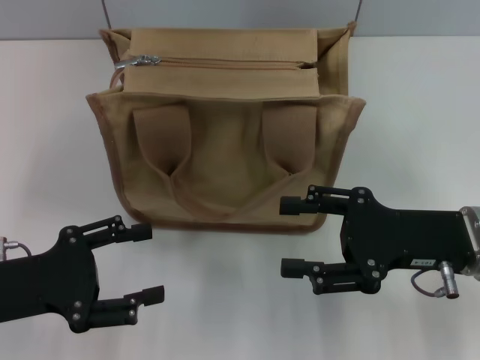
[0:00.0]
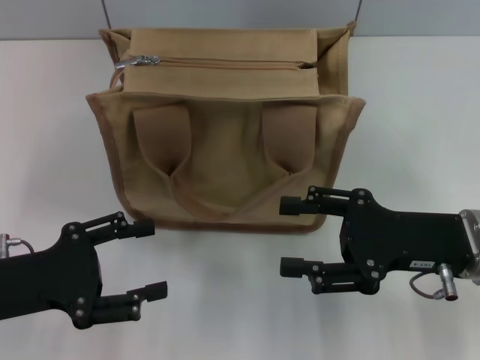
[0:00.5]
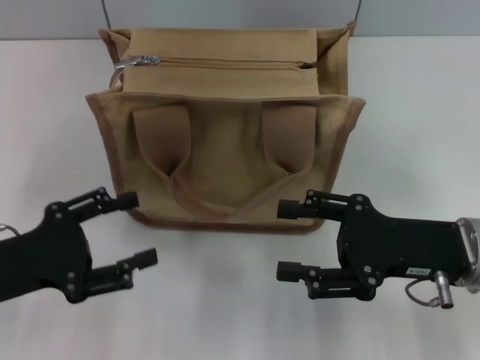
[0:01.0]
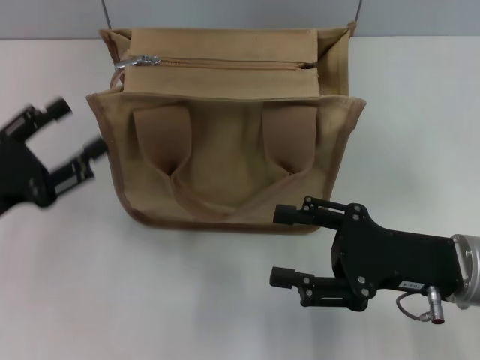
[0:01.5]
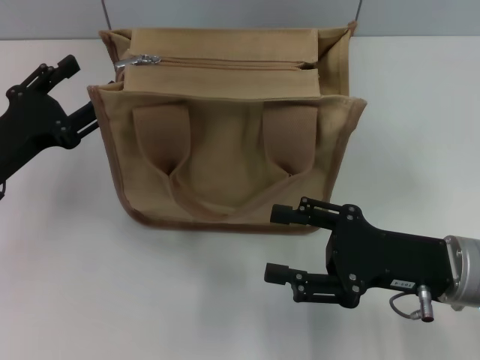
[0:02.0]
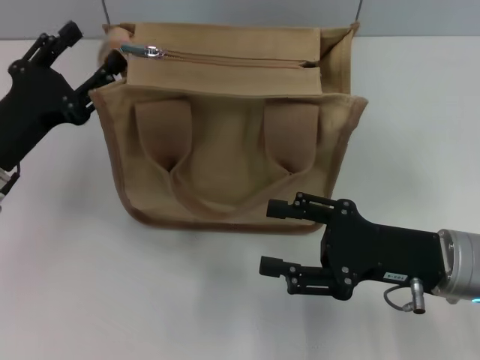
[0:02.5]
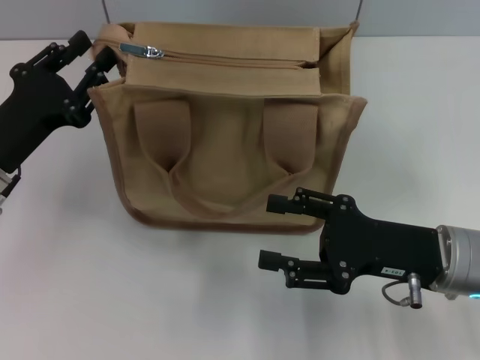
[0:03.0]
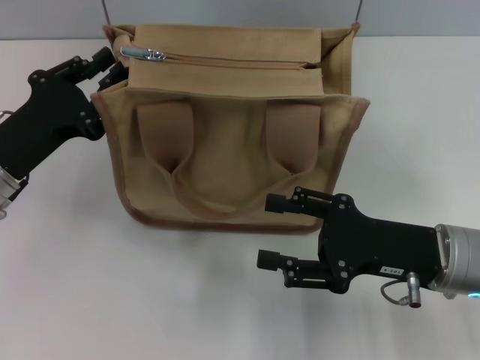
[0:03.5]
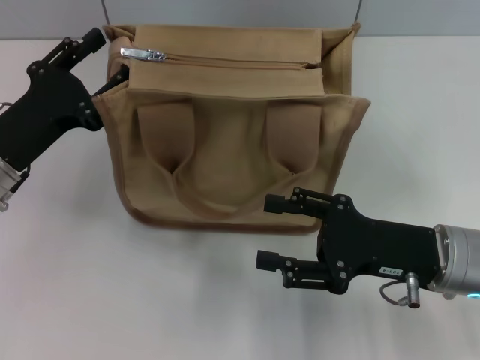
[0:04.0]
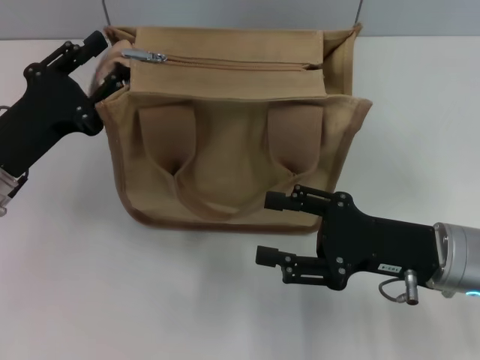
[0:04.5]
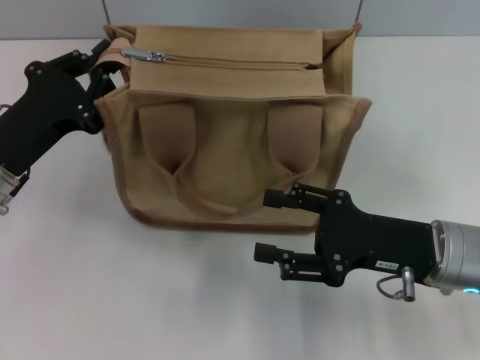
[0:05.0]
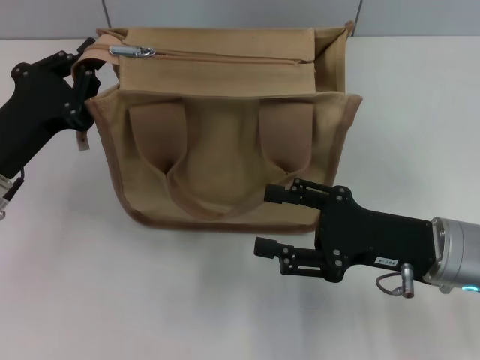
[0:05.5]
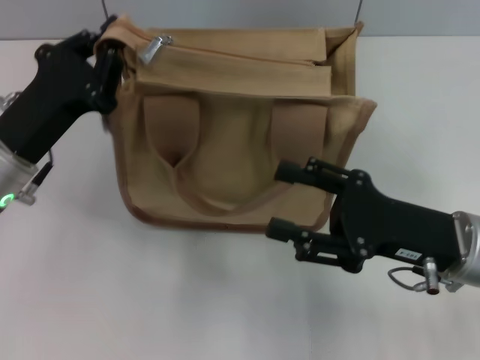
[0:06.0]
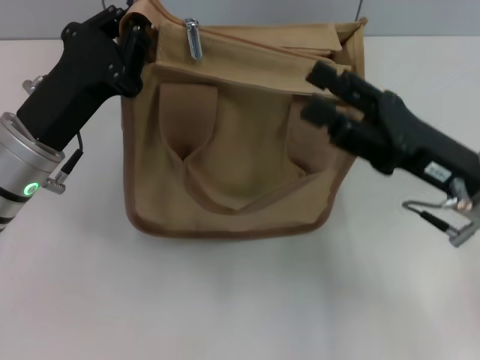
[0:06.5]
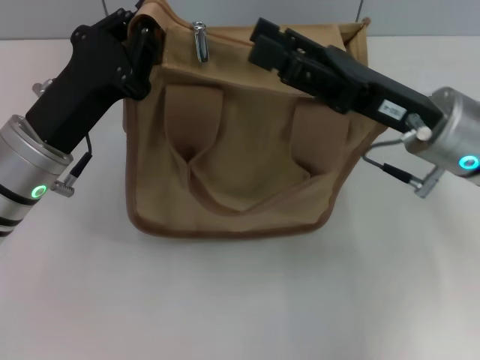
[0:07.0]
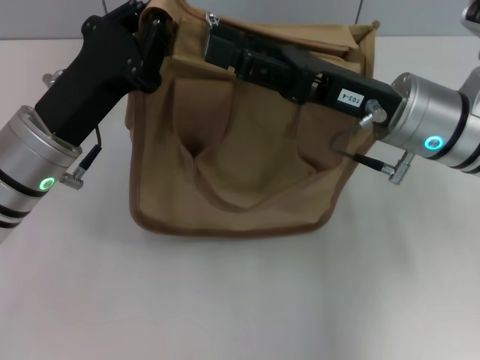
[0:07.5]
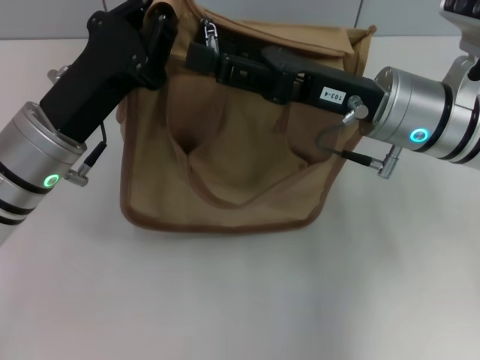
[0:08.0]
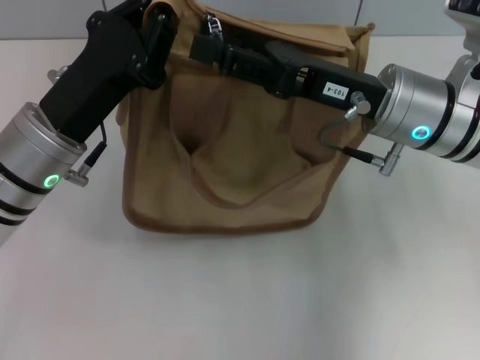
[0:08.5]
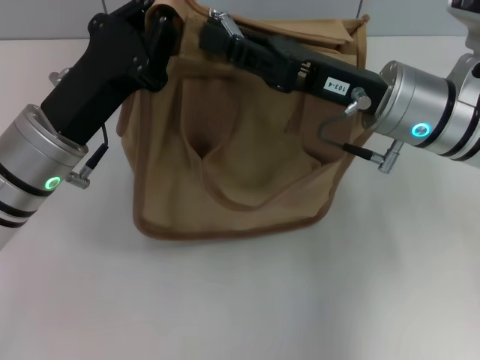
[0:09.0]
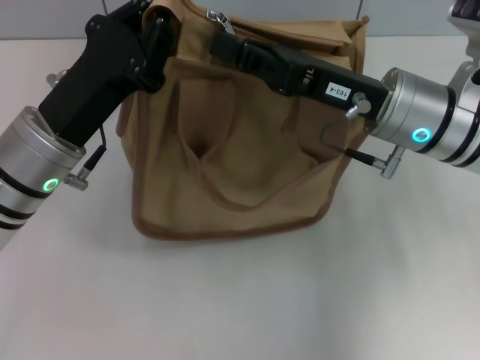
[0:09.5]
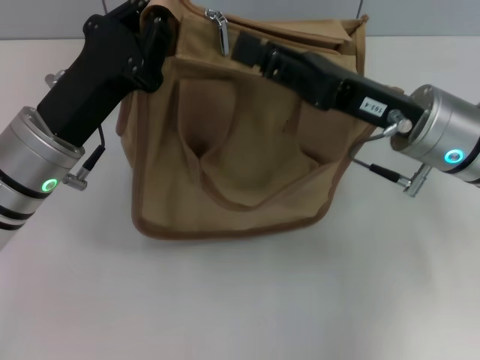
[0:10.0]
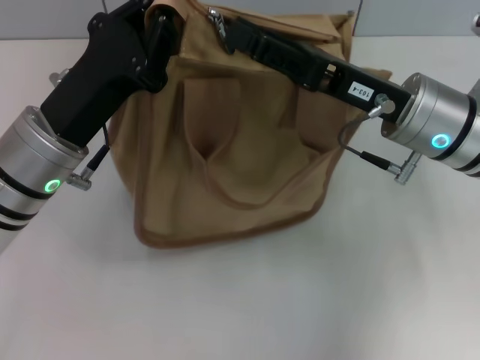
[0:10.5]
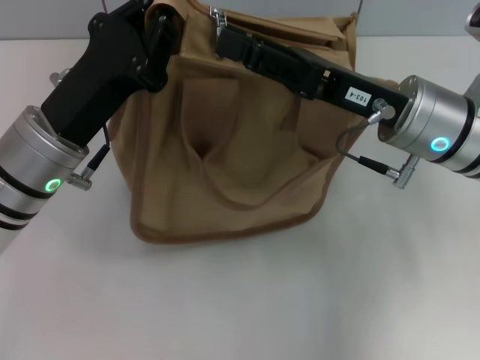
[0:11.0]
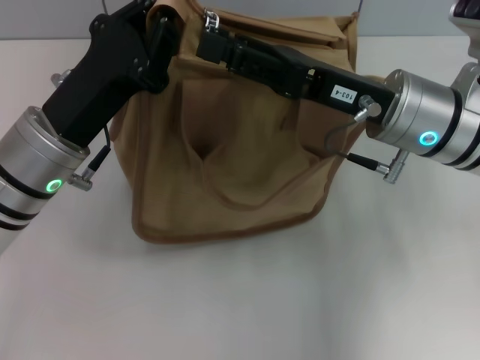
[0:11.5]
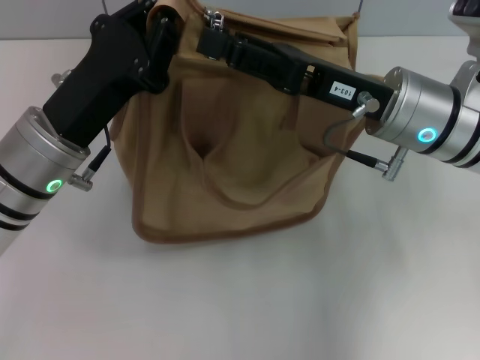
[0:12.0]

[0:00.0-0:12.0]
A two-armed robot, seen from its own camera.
0:00.0 to 0:02.0: The left gripper goes about 10 cm forward.
0:02.0 to 0:04.0: The left gripper closes its fingers.
0:04.0 to 0:06.0: The left gripper closes up.
0:06.0 to 0:08.0: The right gripper shifts about 15 cm forward, upward and to the left.
0:08.0 to 0:10.0: The right gripper closes its fingers.
0:10.0 to 0:12.0: The right gripper opens its fingers.

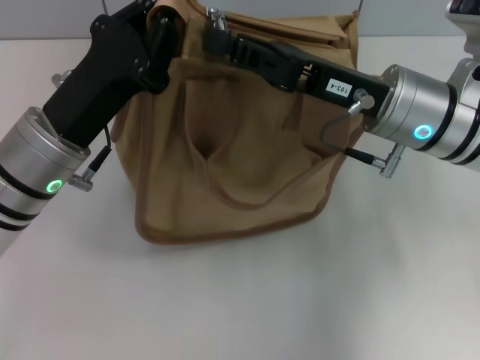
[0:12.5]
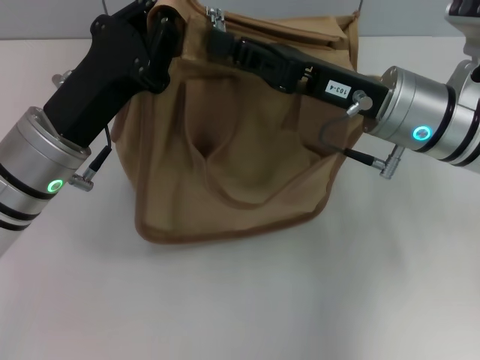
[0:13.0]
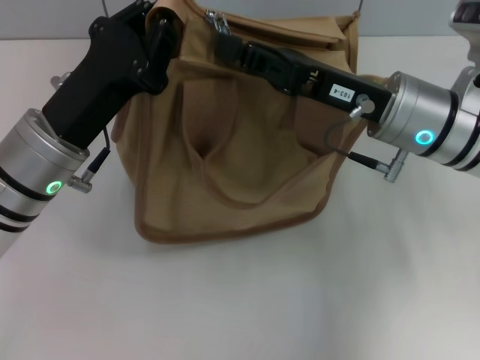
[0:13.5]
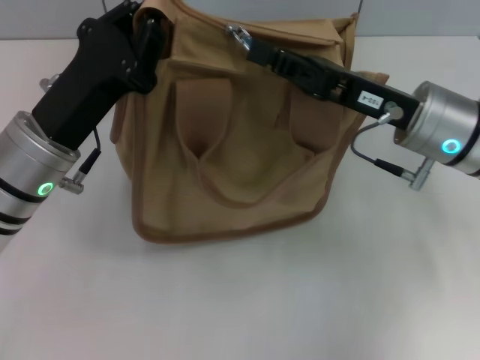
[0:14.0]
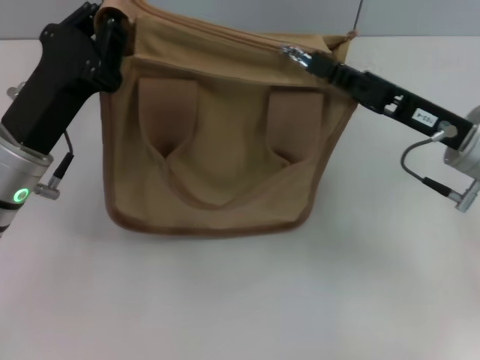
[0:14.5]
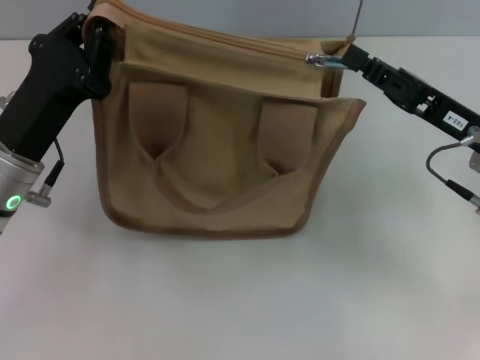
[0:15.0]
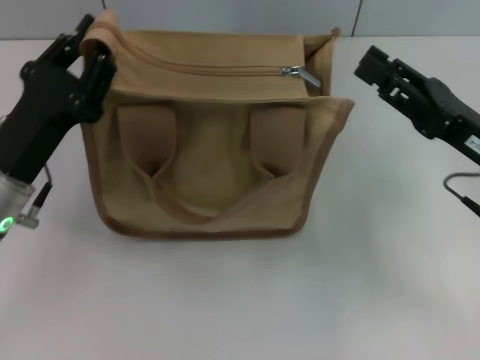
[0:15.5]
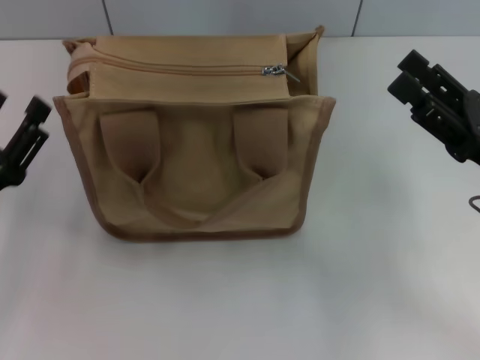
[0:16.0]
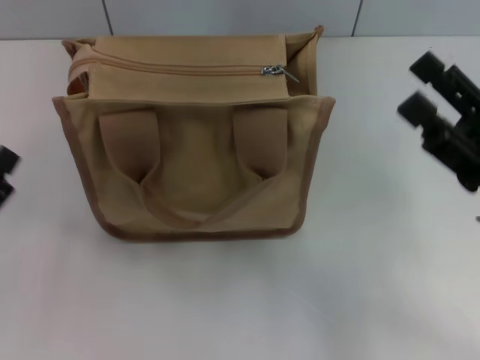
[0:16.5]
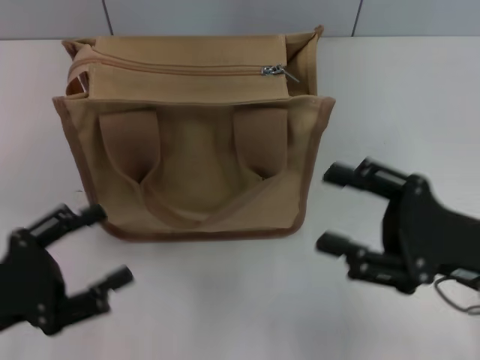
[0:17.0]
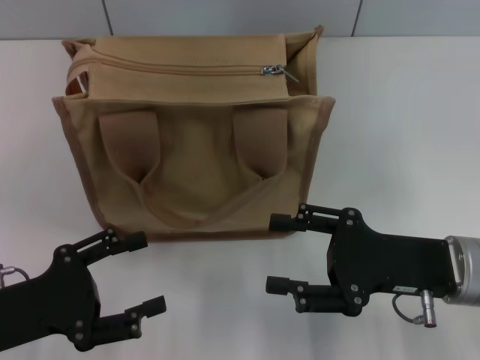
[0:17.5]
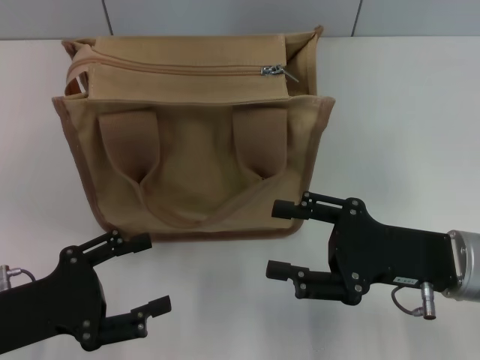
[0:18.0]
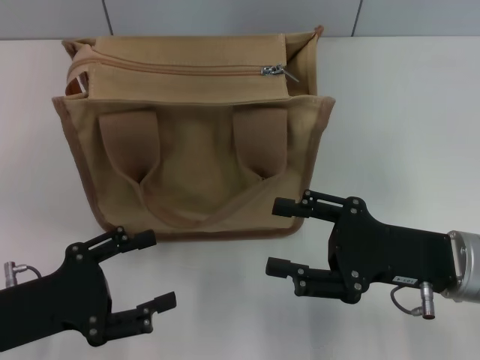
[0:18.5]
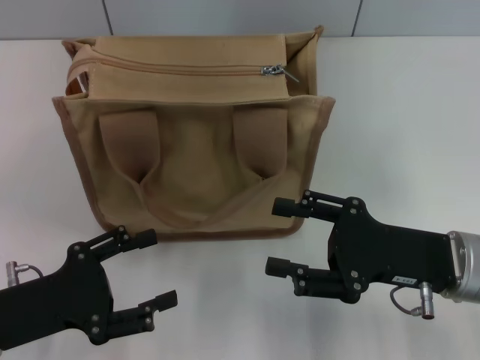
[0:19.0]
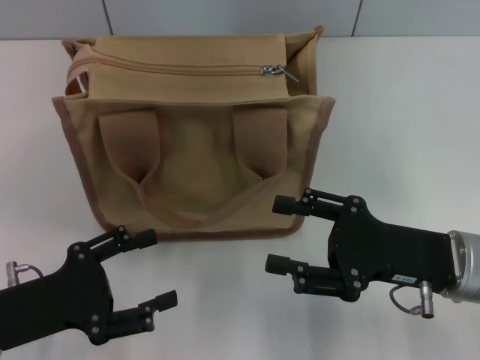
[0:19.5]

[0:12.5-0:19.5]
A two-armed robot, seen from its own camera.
Step, 0:12.5 to 0:15.0: Pull up the zipper with your right hand.
0:12.5 to 0:14.5: The right gripper travels to the right by about 5 cm, and closes its fingers.
0:14.5 to 0:16.0: The left gripper goes approximately 10 cm backward, to the left and downward, and opens its fingers; the right gripper moves backward, approximately 5 cm, and opens up.
0:16.0 to 0:17.5: The right gripper travels to the left by roughly 5 cm.
0:17.5 to 0:19.5: The grippers move only a little.

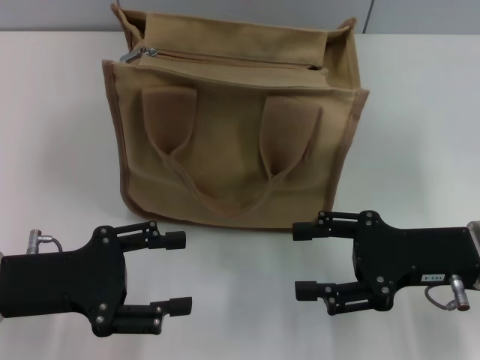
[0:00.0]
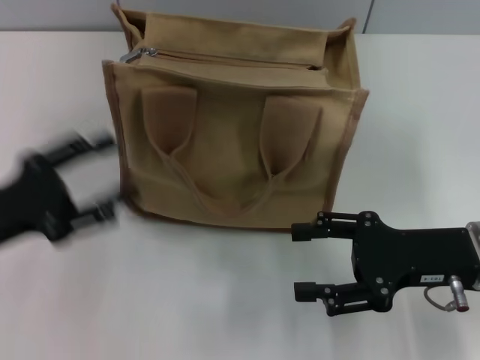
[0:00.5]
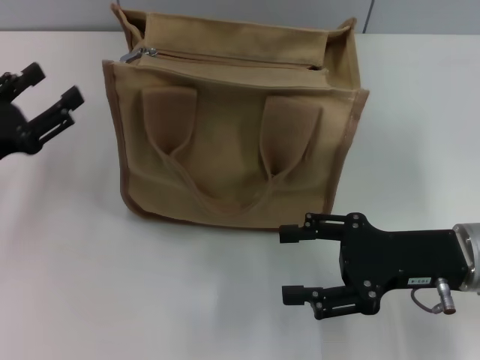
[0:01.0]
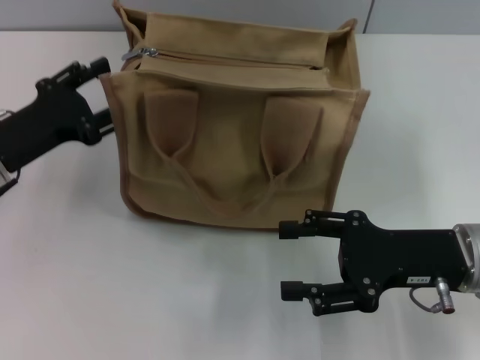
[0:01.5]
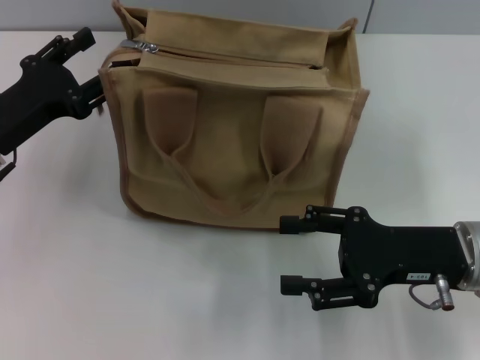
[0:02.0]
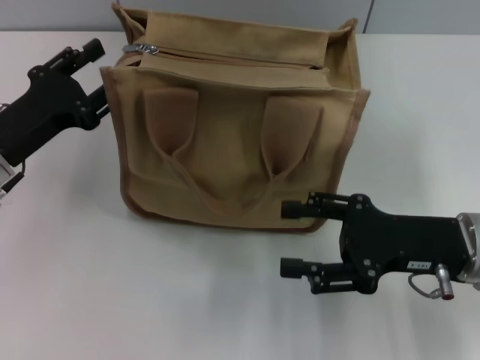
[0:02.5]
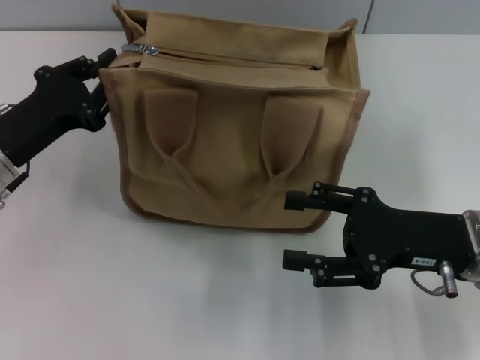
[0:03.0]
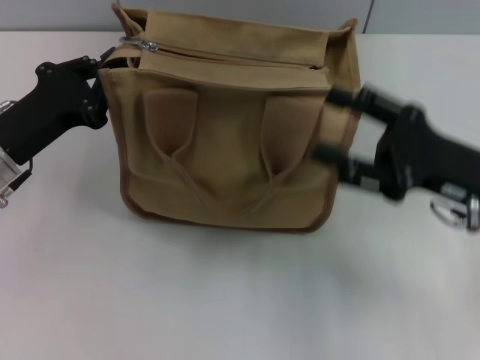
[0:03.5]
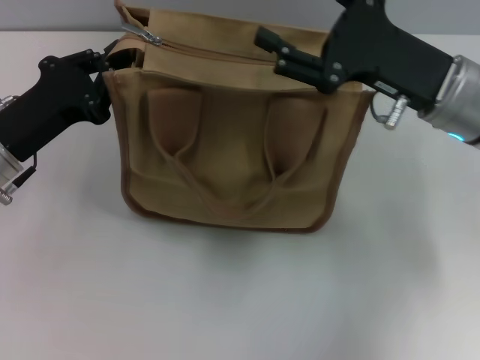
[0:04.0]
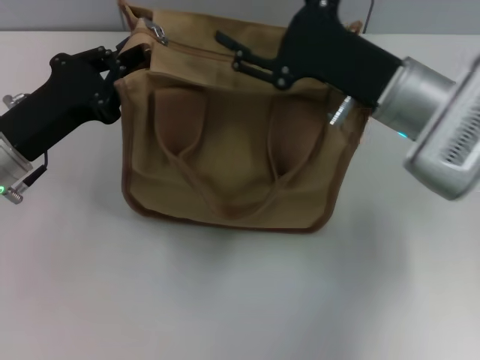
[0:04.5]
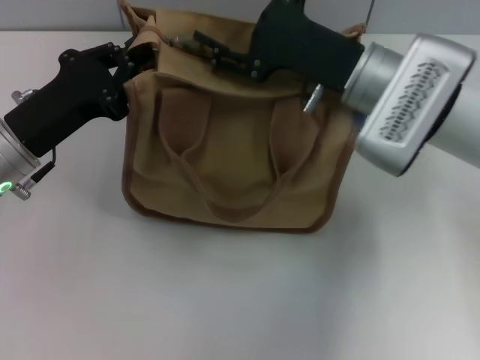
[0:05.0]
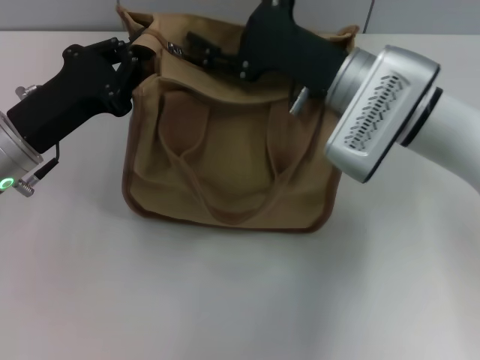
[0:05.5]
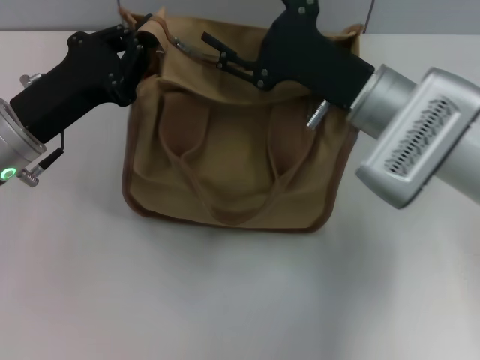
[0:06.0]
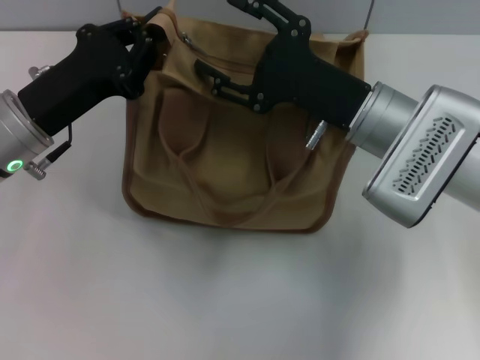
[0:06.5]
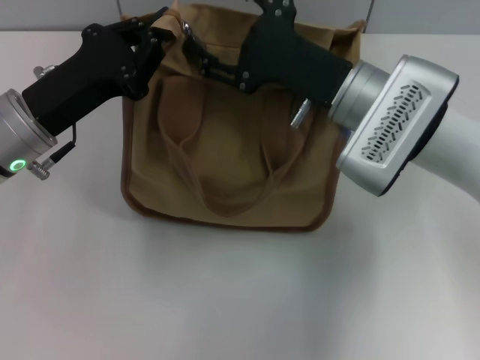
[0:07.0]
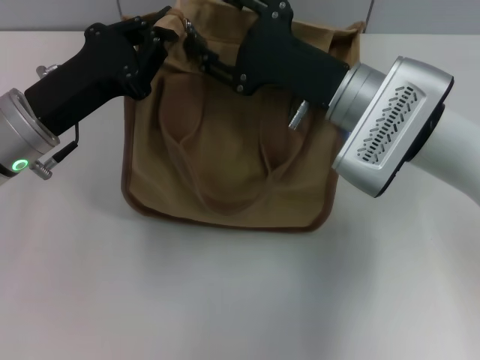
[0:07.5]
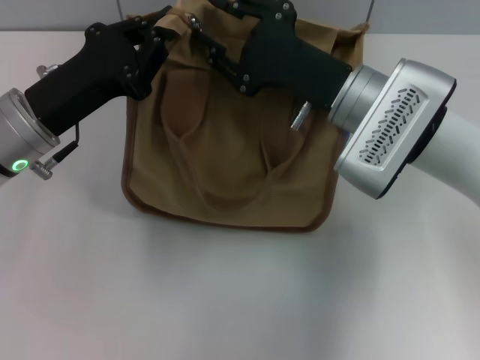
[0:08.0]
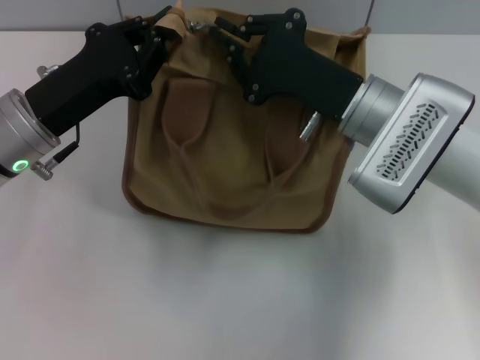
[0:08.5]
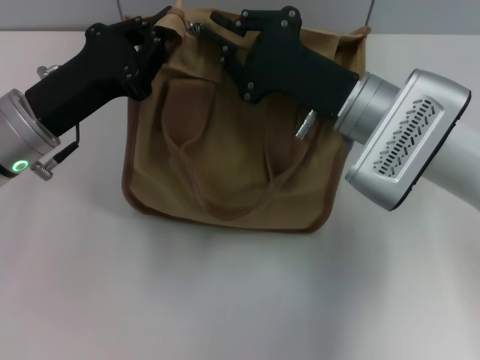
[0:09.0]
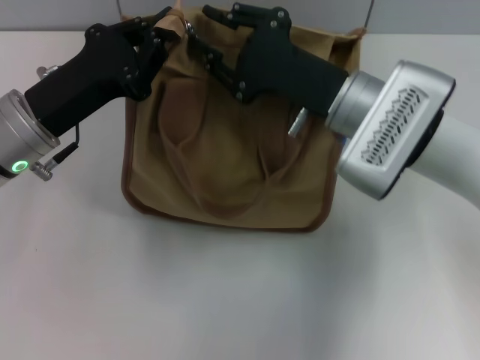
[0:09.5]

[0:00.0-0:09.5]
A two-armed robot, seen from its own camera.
0:00.0 to 0:02.0: The left gripper shifts roughly 10 cm forward.
0:02.0 to 0:04.0: The right gripper moves forward and upward, about 10 cm. The left gripper closes up.
0:04.0 to 0:05.5: The right gripper shifts about 5 cm to the left.
0:05.5 to 0:07.5: The grippers make only small movements.
0:07.5 to 0:09.5: The right gripper closes its fingers.
